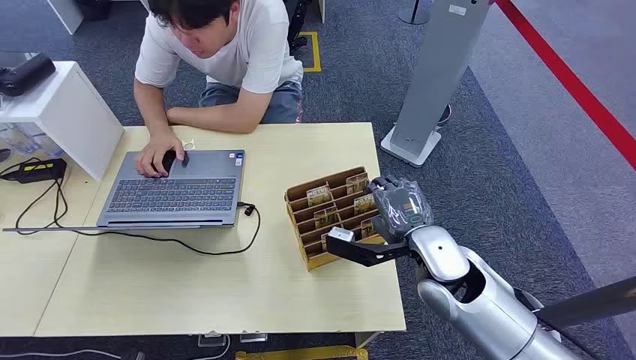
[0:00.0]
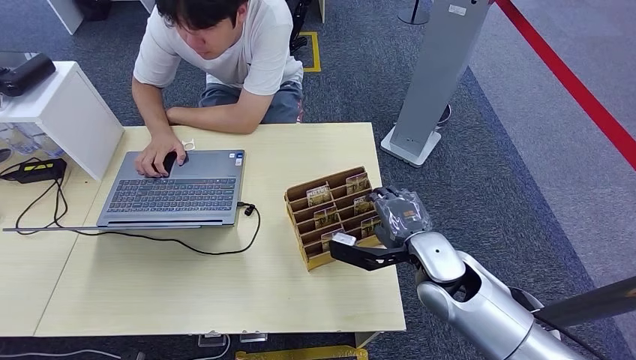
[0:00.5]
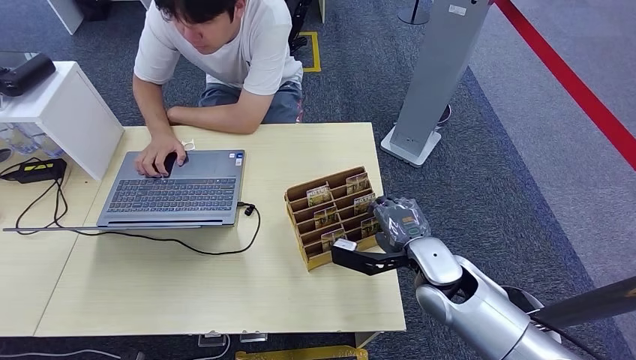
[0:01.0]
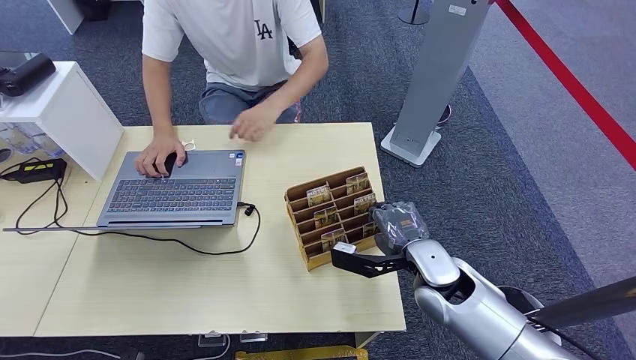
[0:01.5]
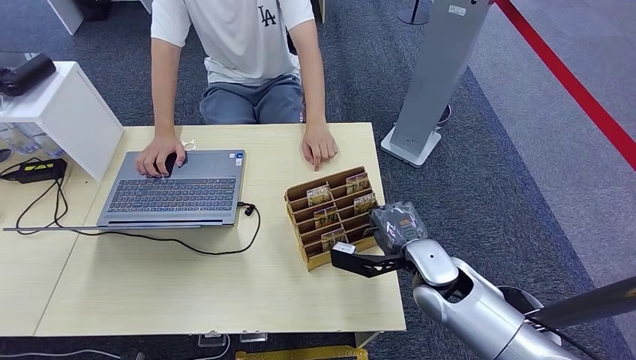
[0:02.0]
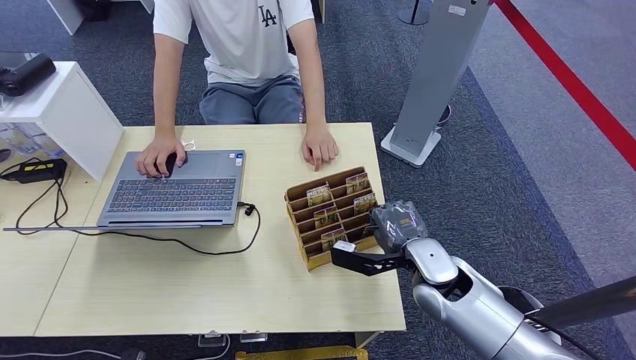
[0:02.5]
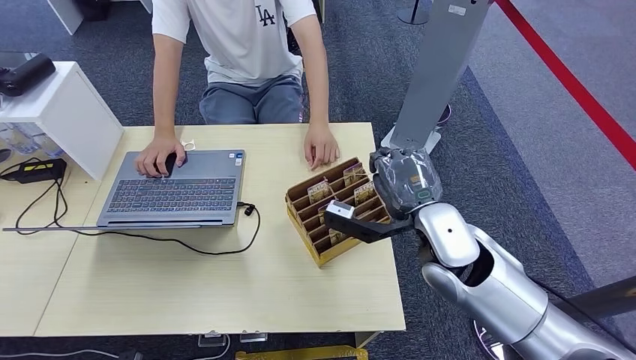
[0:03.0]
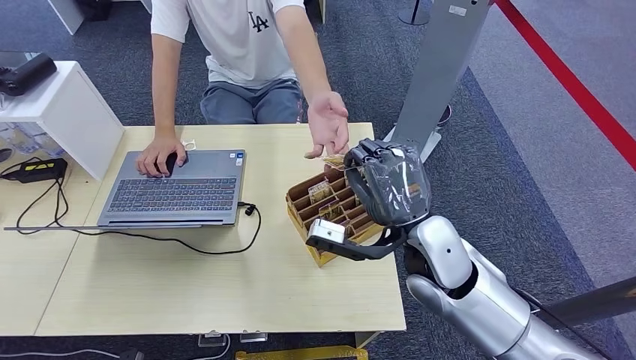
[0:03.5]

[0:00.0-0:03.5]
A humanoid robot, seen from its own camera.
Step, 0:00.0 to 0:02.5: Pick up the key card from the card box.
Step, 0:03.0 to 0:03.5: Hand the key card to the target.
0:02.0 to 0:03.5: The right hand travels upward by some 10 cm.

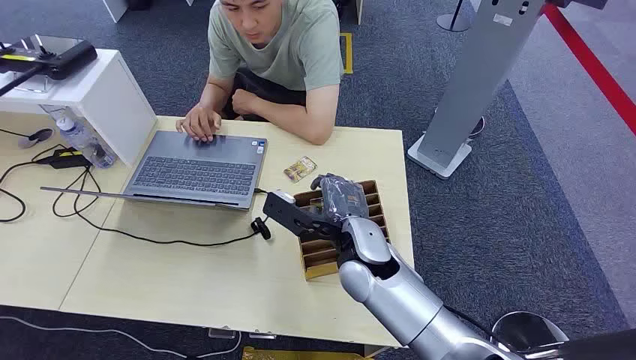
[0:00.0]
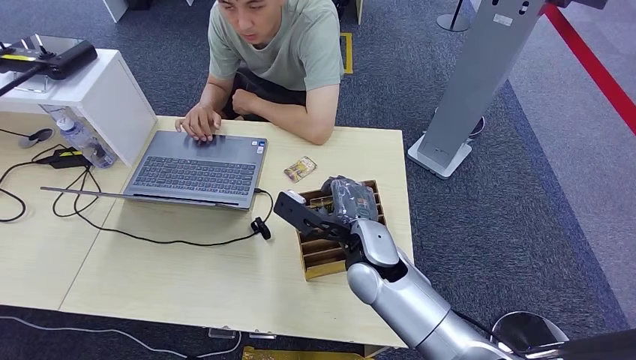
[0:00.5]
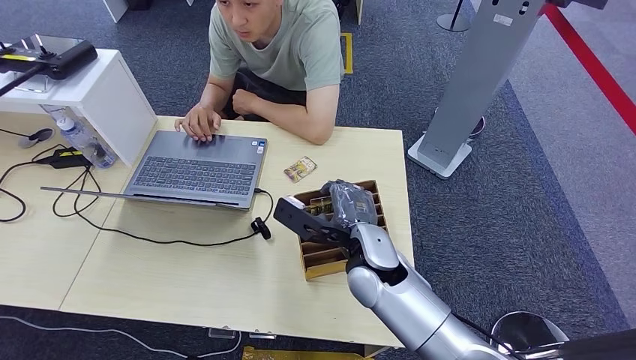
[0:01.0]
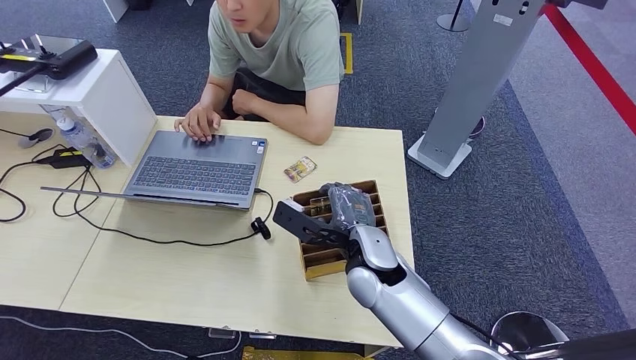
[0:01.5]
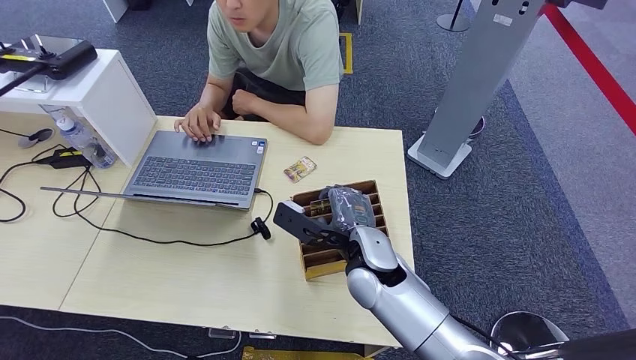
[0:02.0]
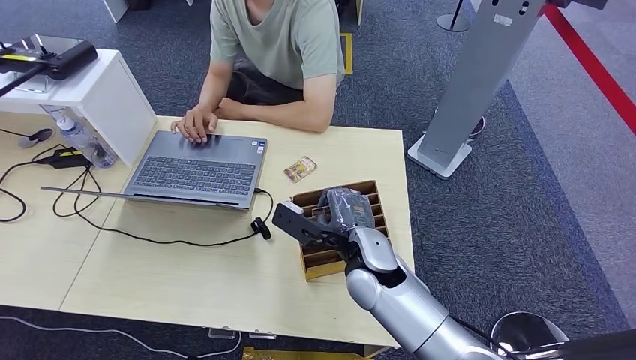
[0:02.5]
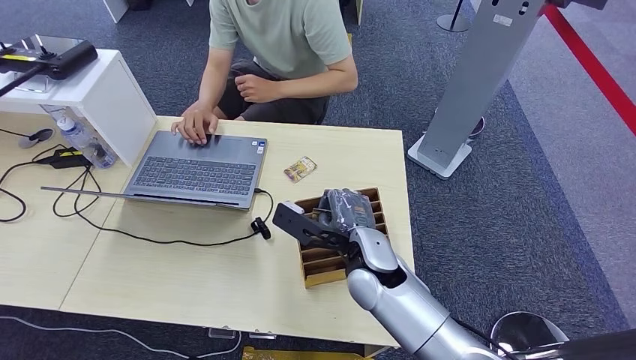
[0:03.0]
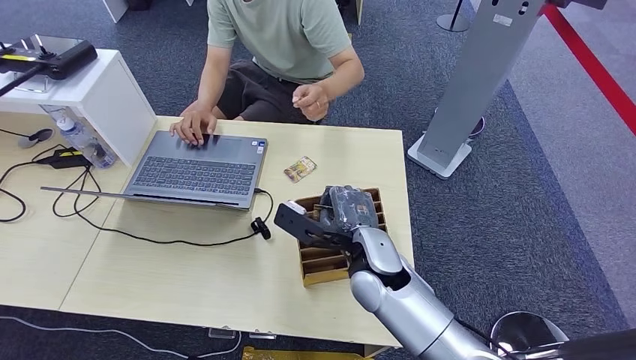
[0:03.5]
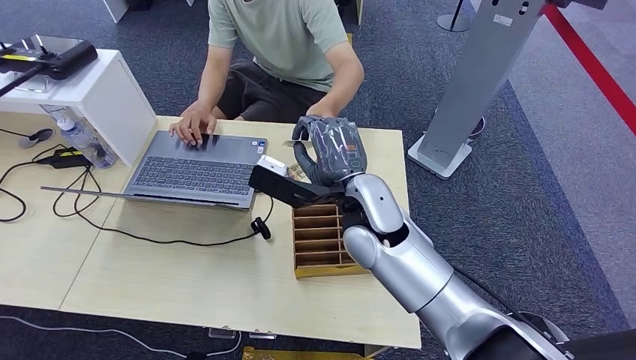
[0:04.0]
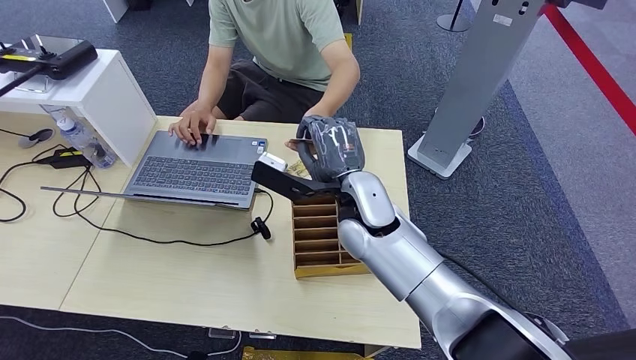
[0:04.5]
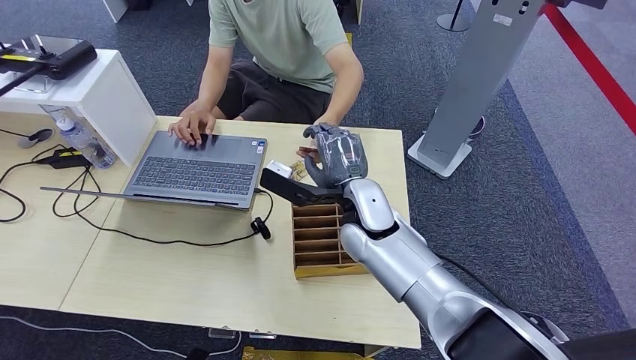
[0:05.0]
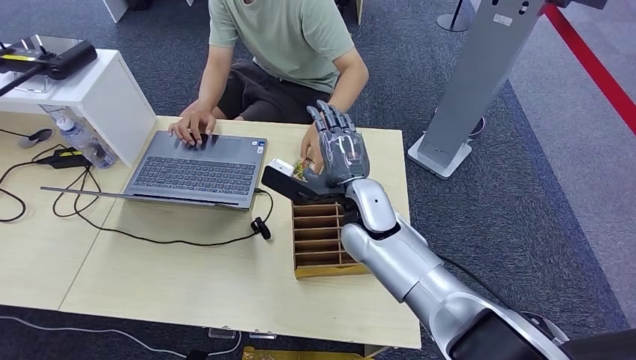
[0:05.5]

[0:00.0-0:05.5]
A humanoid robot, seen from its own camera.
Step, 0:00.0 to 0:03.5: Pick up the key card from the card box.
Step, 0:04.0 to 0:05.5: Hand the key card to the target.
0:02.0 to 0:03.5: The two hands keep their place.
0:03.5 to 0:05.5: The right hand travels forward by some 5 cm.
